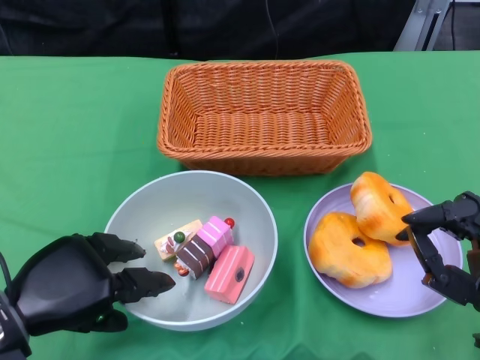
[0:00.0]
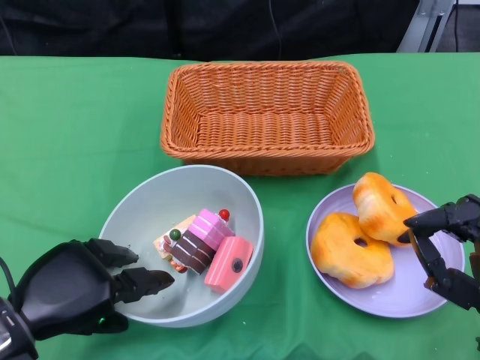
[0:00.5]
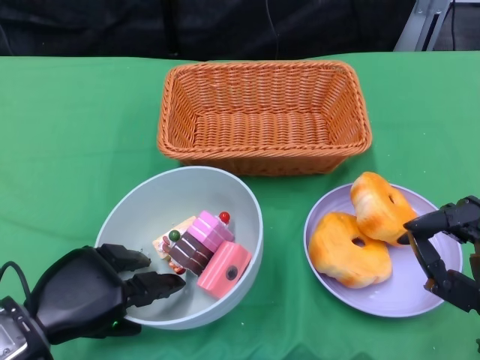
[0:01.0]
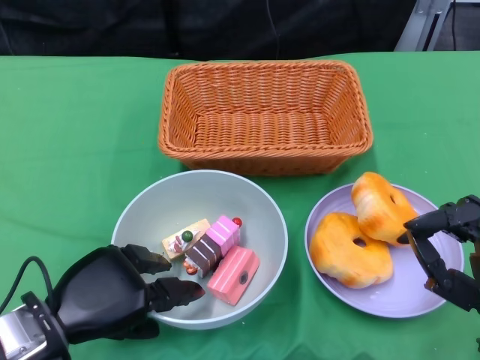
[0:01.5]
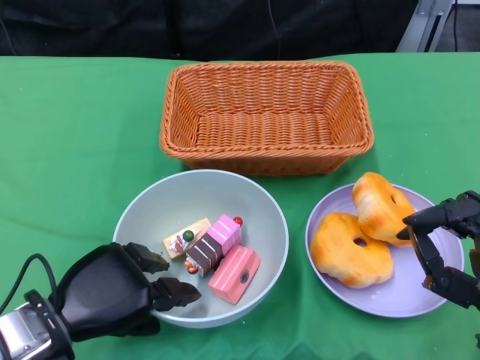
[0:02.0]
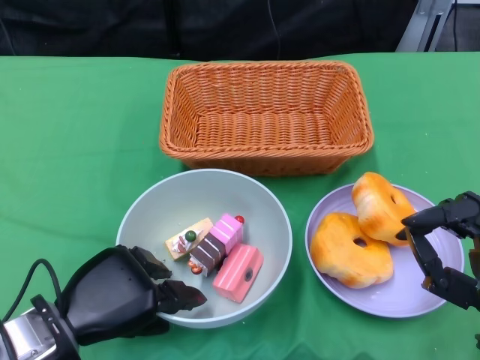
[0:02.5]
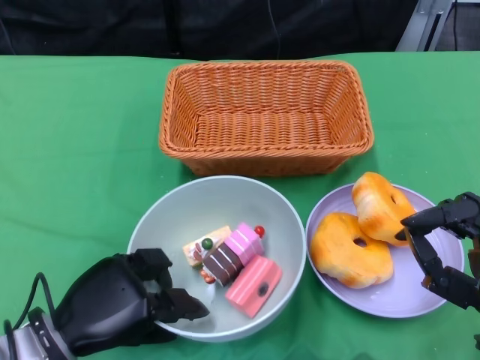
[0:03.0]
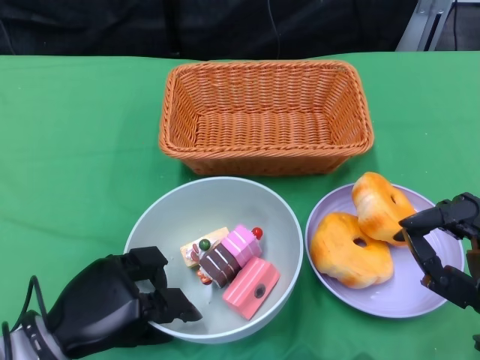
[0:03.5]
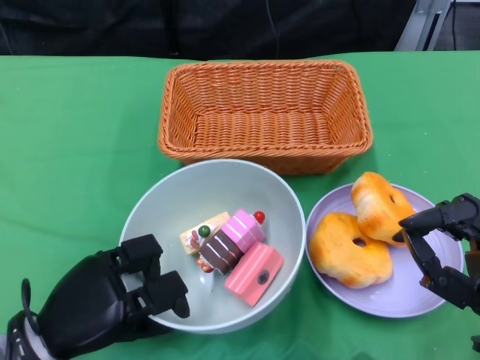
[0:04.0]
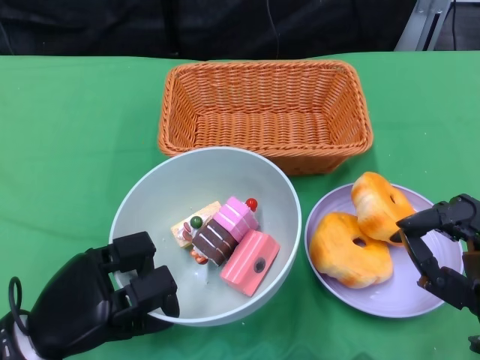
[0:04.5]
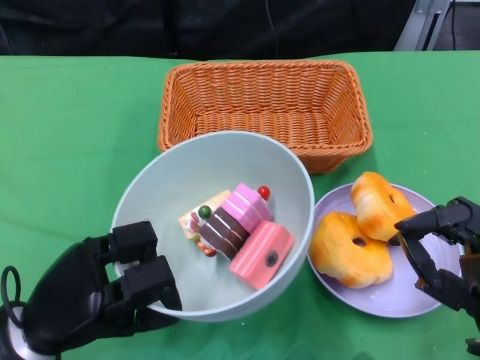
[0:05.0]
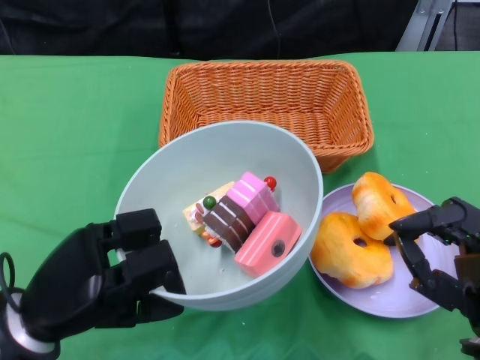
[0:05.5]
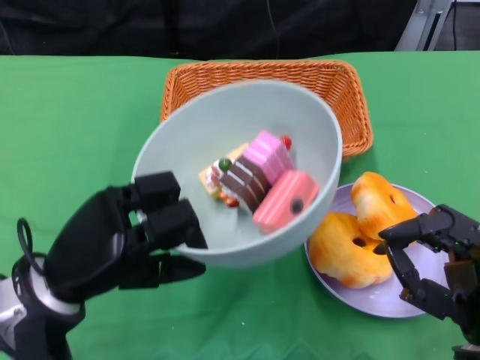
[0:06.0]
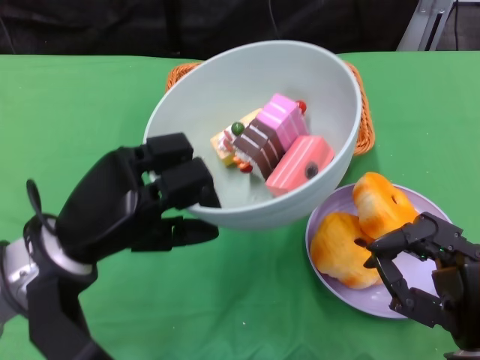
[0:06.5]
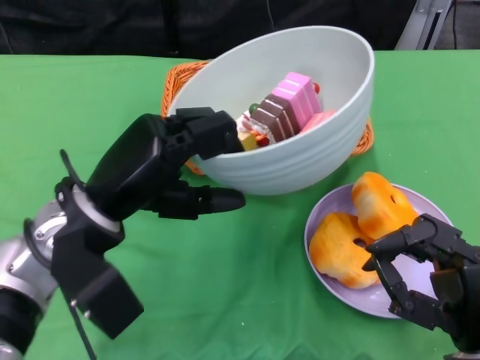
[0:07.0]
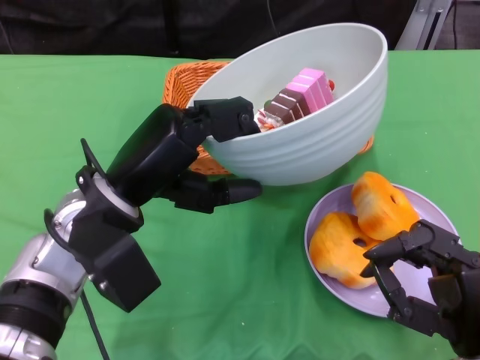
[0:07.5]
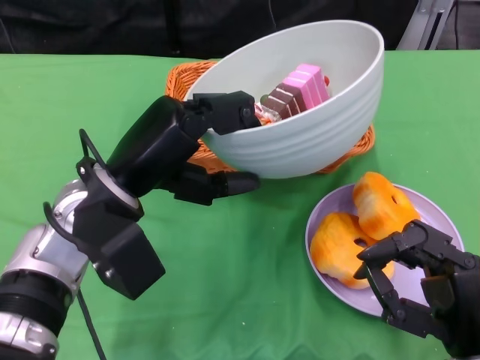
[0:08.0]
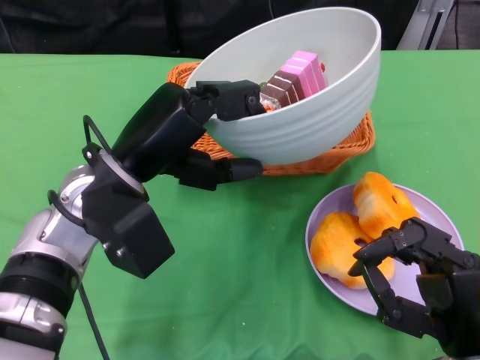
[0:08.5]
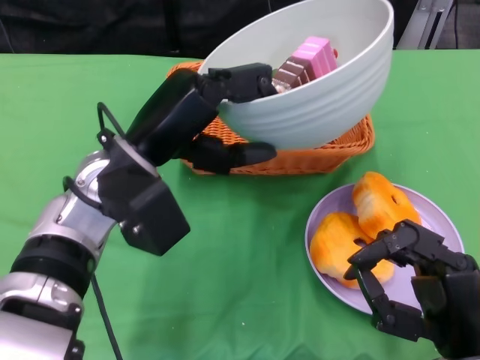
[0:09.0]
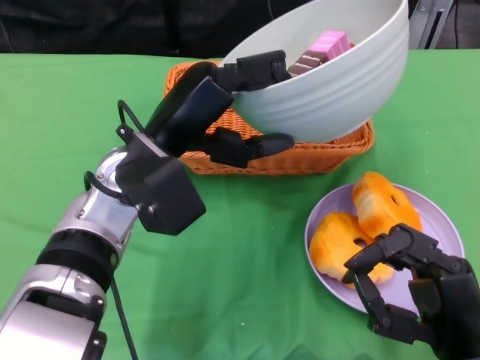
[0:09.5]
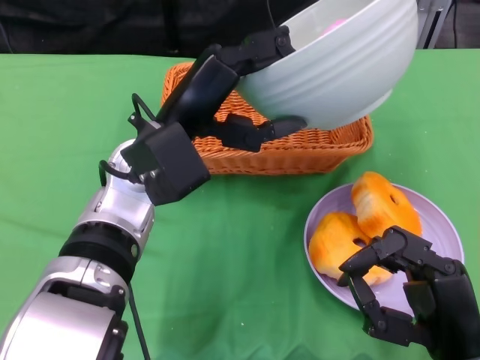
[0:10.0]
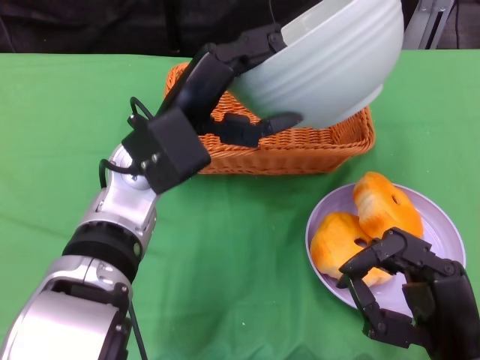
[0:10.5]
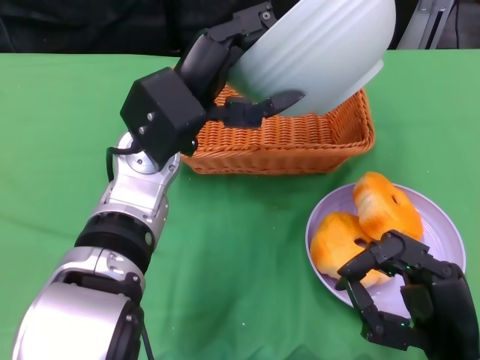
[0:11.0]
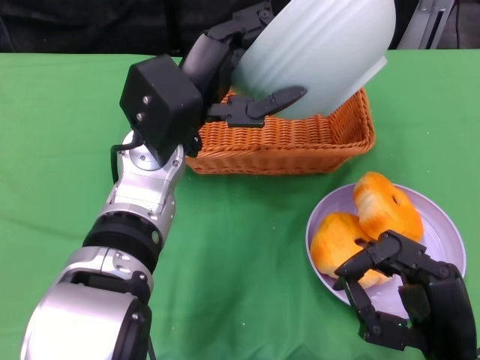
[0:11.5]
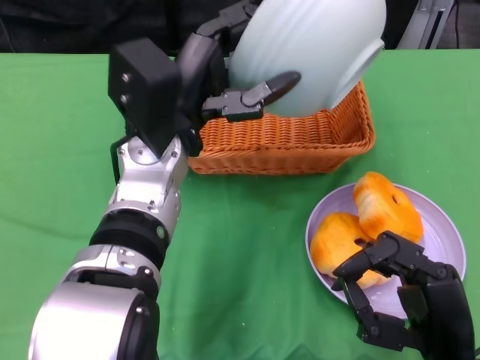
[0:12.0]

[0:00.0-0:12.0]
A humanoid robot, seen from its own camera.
Step, 0:00.0 to 0:03.0: Grasp the bowl with the left gripper.
0:00.0 to 0:02.0: The hands stay close to where they were, moving slightly.
0:04.0 to 0:06.0: The left hand heads upward, covering roughly 5 cm.
0:06.0 to 0:08.0: The left hand is displaced upward, forward and to the right by roughly 10 cm.
0:08.0 to 0:10.0: The left hand shifts by roughly 5 cm.

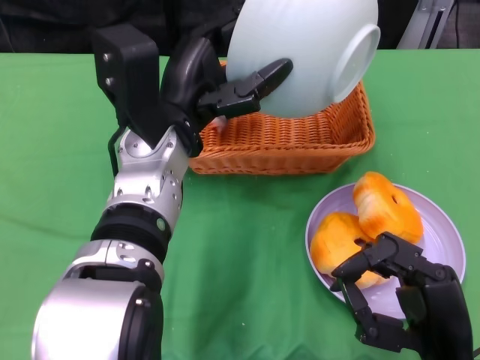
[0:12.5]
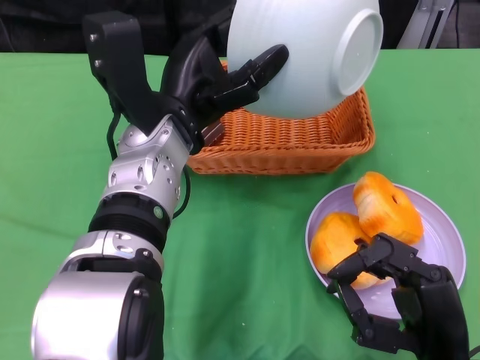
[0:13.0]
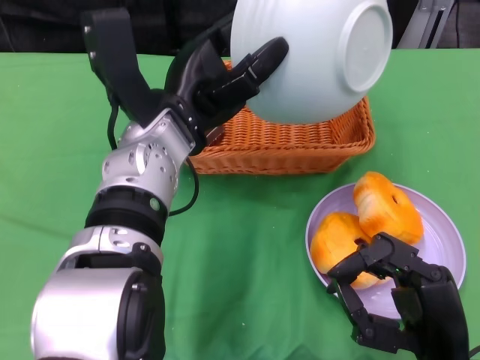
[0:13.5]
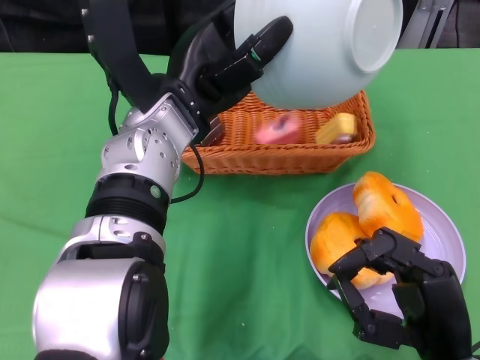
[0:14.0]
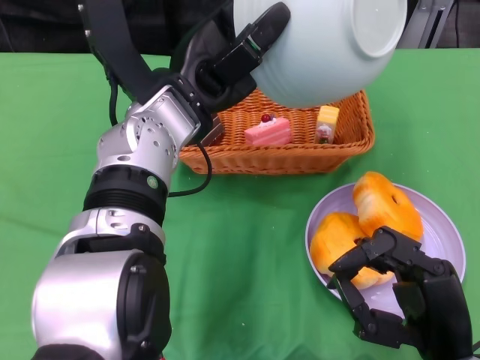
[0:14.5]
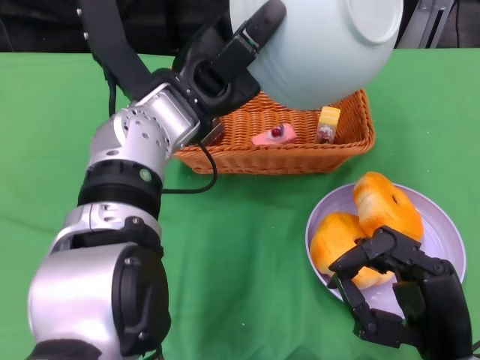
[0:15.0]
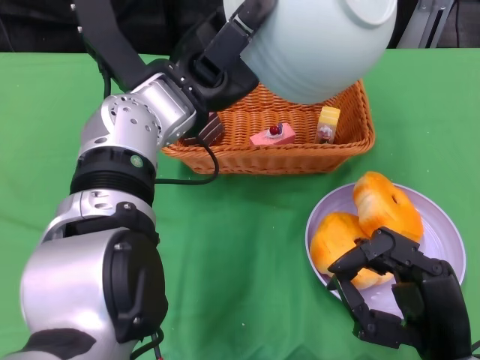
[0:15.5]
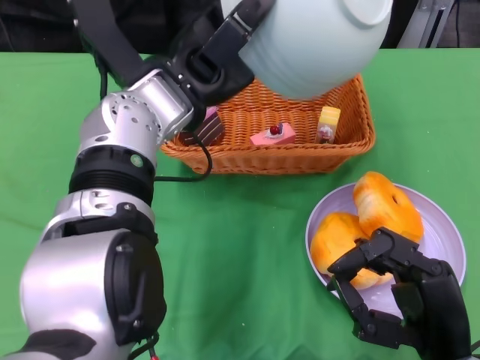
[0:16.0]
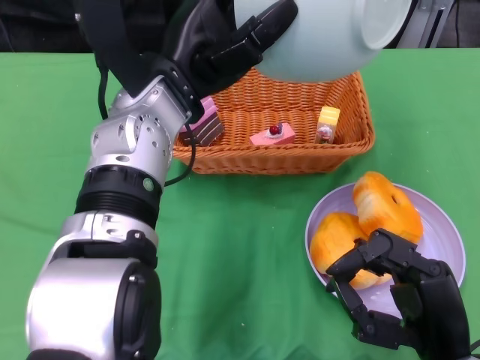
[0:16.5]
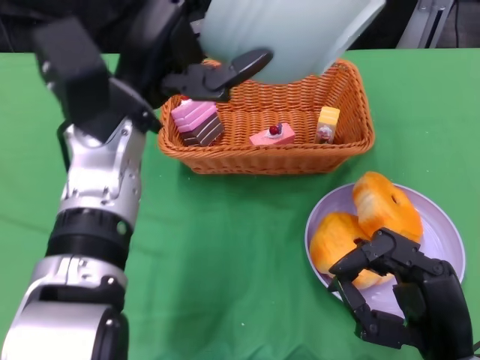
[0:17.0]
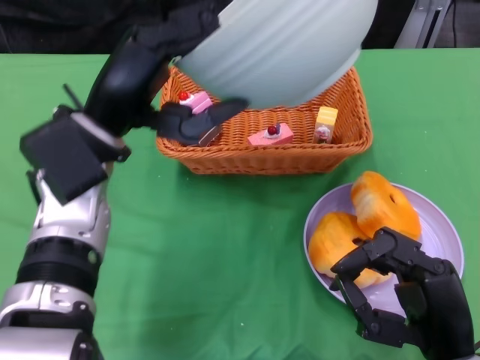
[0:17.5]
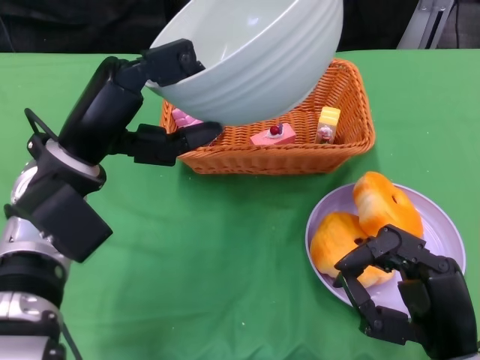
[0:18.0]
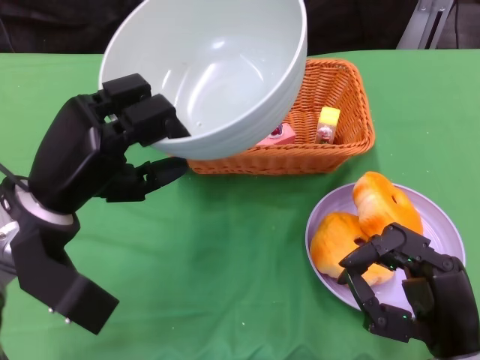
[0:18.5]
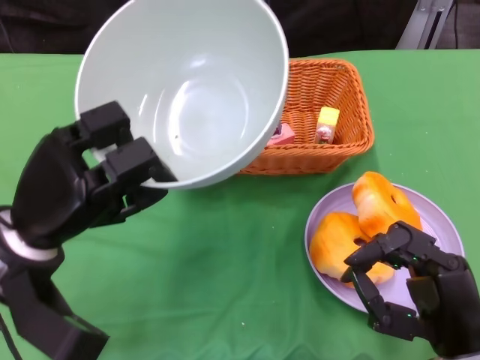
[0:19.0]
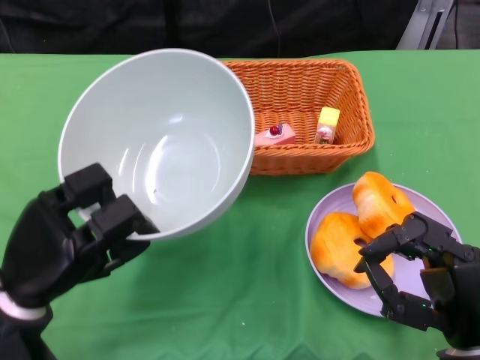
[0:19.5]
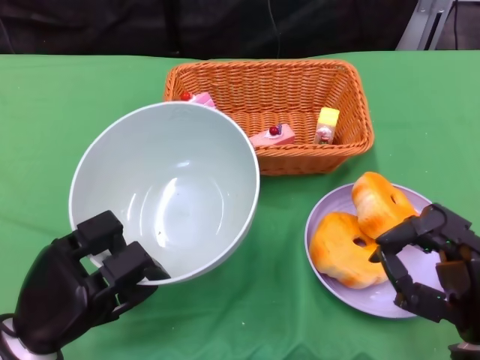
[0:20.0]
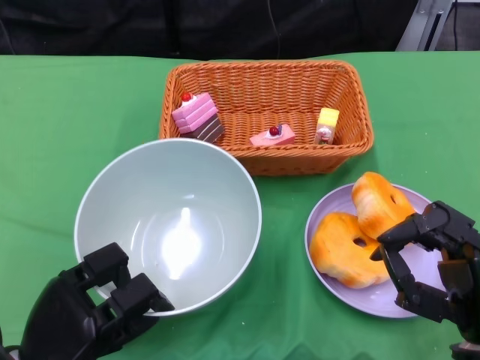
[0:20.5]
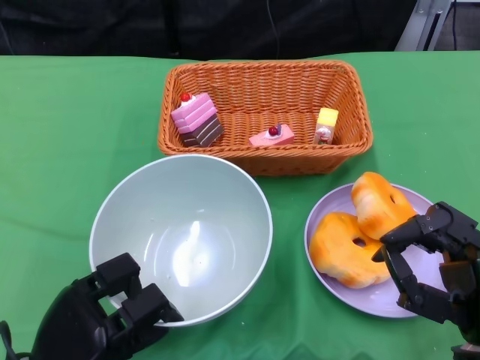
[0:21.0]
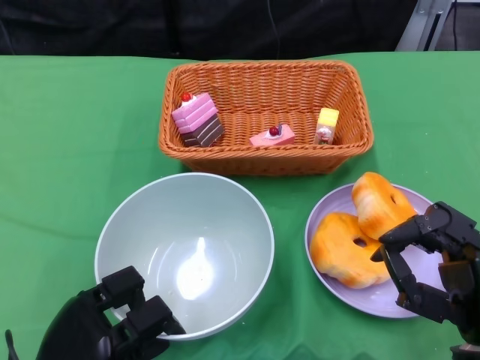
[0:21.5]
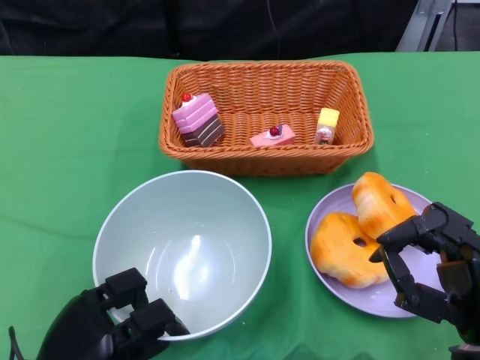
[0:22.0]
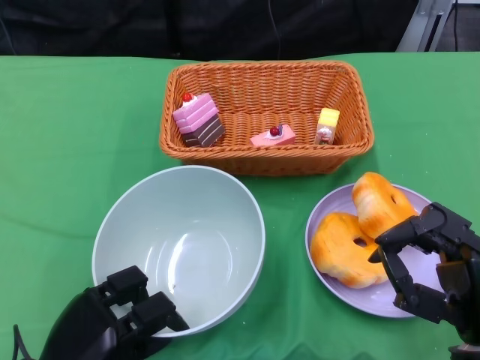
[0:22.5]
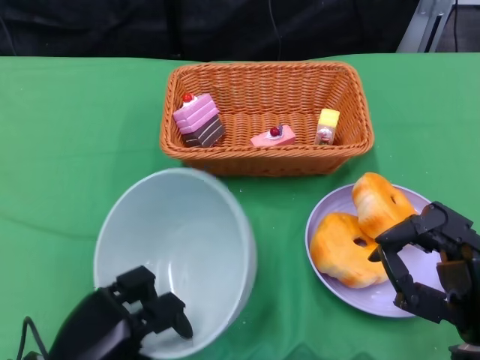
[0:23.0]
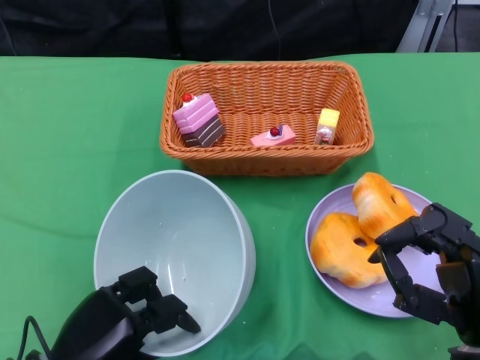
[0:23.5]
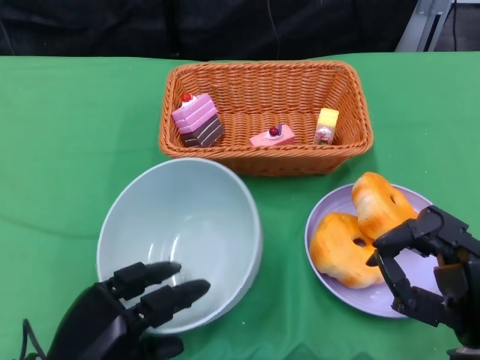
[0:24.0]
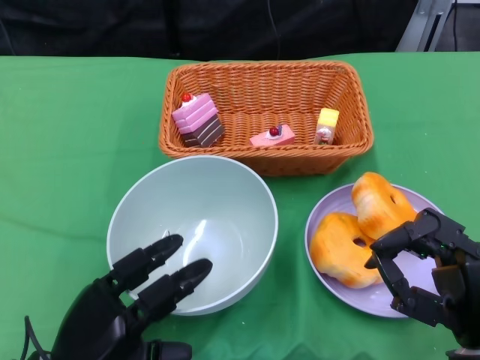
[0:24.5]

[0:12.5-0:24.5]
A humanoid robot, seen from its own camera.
Step, 0:12.5 to 0:16.5: Pour the cake into the basket with the left gripper.
0:14.5 to 0:16.5: The hands move only a little.
0:16.5 to 0:18.5: The left hand moves to the left, backward and downward, approximately 15 cm.
0:18.5 to 0:20.5: The left hand moves downward and backward, about 15 cm.
0:20.5 to 0:22.5: The hands move only a little.
0:22.5 to 0:24.5: There are only small adjustments of the hands.

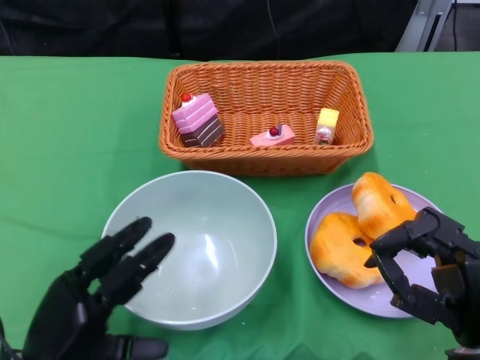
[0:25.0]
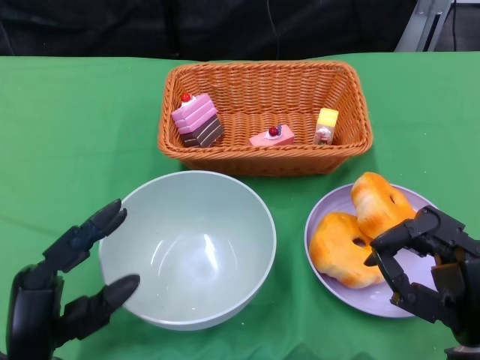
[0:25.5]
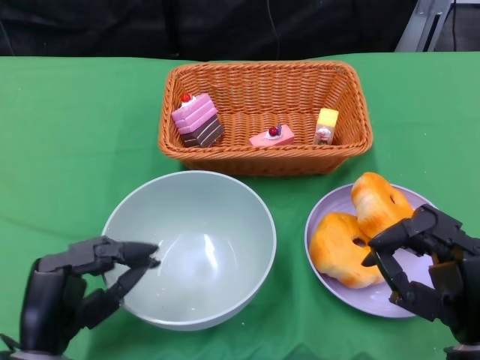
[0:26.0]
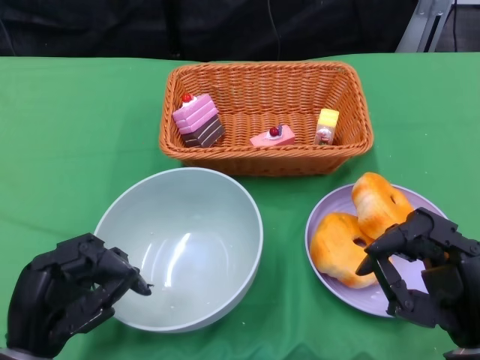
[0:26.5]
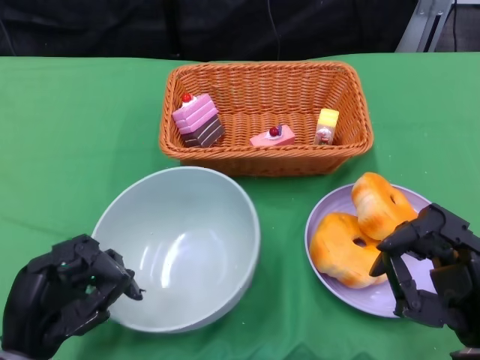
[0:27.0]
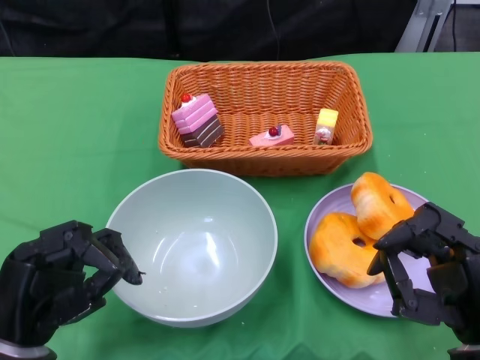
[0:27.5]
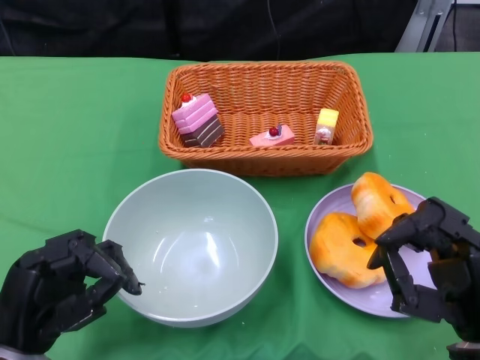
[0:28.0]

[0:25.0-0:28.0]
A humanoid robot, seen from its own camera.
Step, 0:25.0 to 0:27.0: Place the bowl on the table with the left gripper.
0:26.5 to 0:28.0: The hands stay close to where they were, moving slightly.
